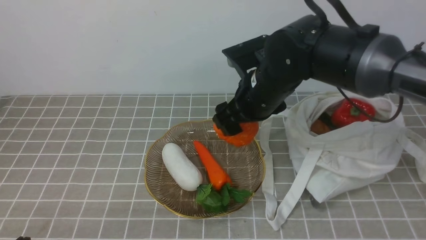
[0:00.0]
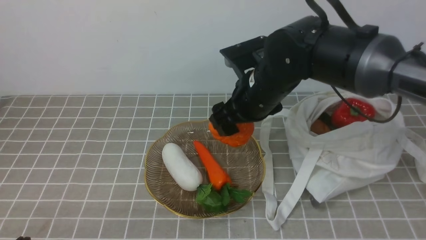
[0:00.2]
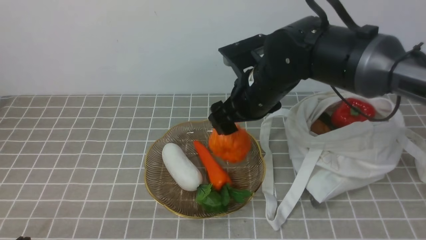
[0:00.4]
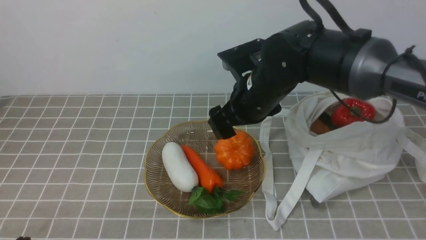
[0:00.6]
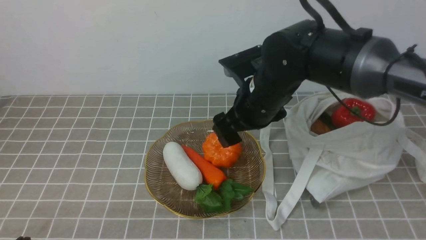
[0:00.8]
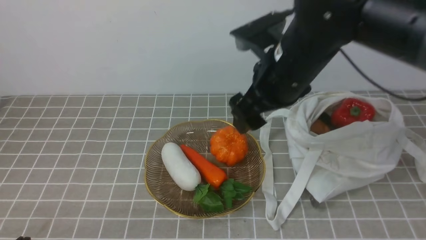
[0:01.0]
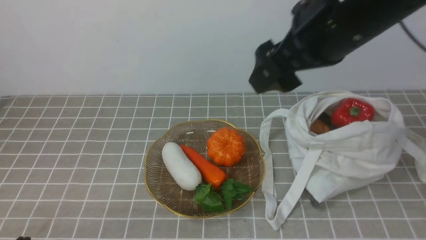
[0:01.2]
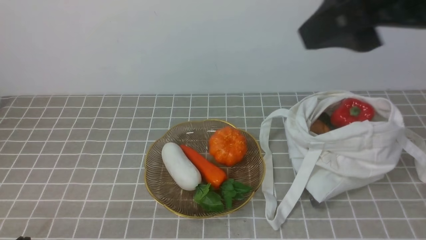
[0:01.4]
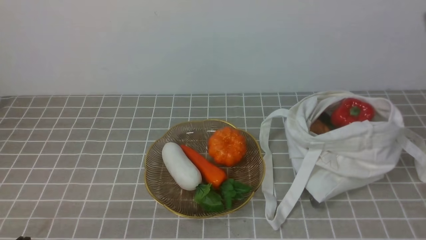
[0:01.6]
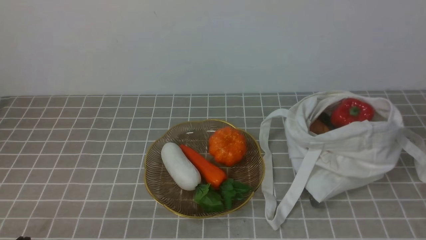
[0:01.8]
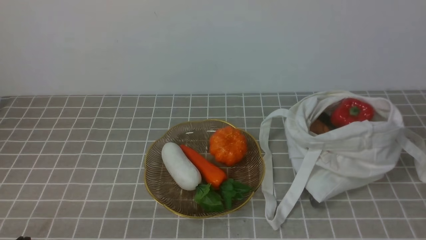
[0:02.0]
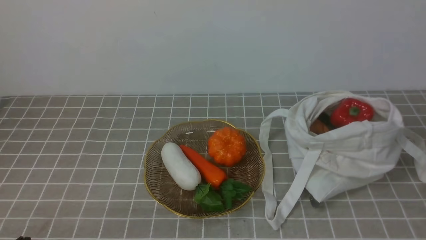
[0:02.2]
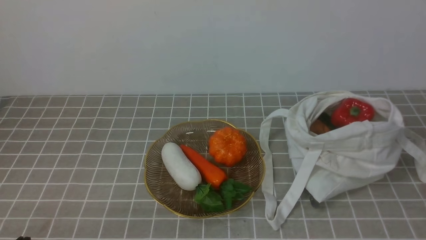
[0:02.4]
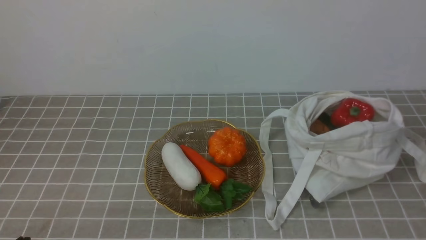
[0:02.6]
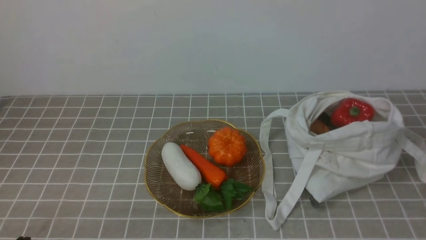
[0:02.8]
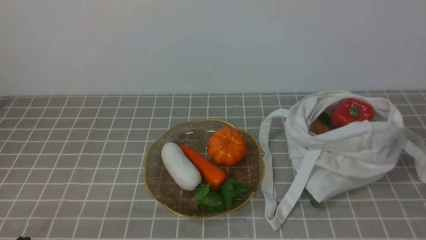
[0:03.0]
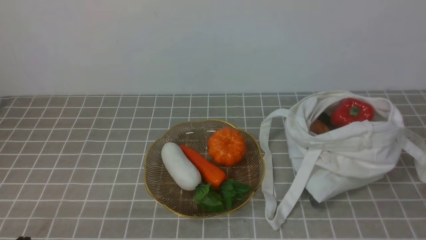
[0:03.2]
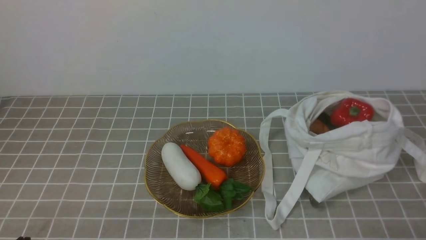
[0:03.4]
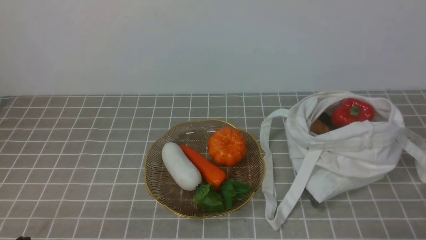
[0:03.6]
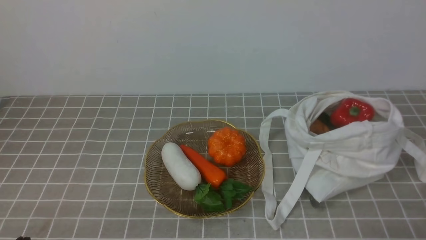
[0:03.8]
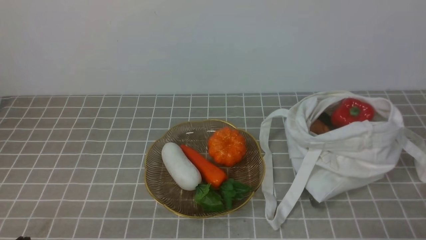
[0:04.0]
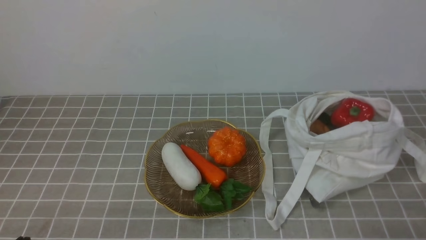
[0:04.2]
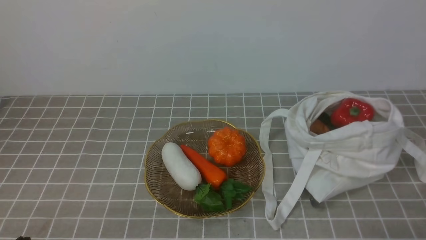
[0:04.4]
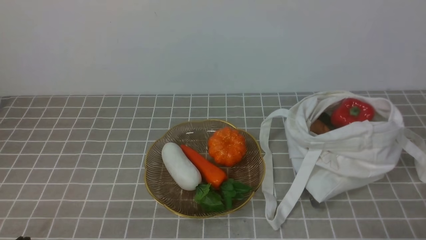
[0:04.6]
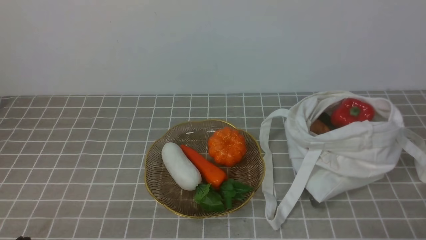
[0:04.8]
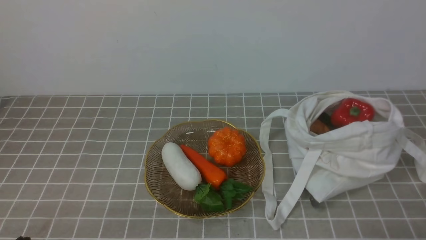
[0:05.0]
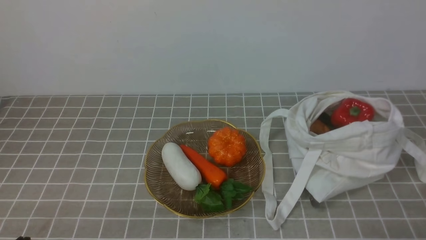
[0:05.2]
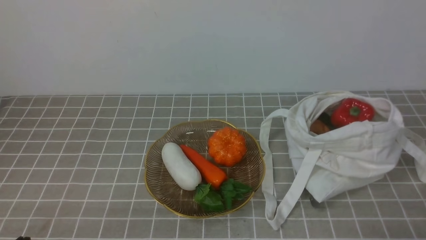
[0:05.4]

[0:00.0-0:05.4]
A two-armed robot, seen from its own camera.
Task of the whole recording: take vegetables from bag on grey coffee tablecloth place on plate.
0:00.0 to 0:01.4: The right gripper shifts some 30 cm upward, backward and to the right.
0:01.4 to 0:02.8: The right gripper heads downward, backward and to the right, covering about 20 cm, and closes.
0:04.0 to 0:05.4: Both grippers stay put.
